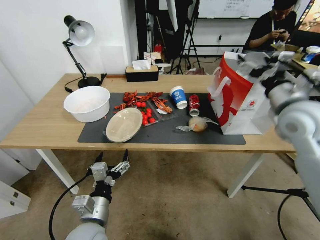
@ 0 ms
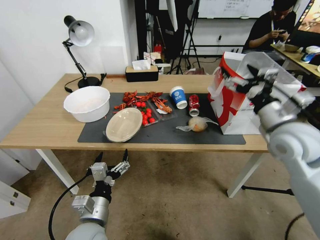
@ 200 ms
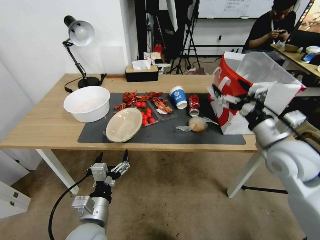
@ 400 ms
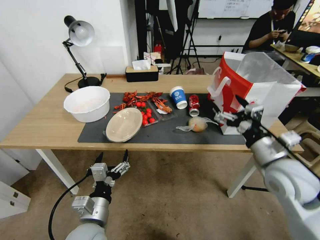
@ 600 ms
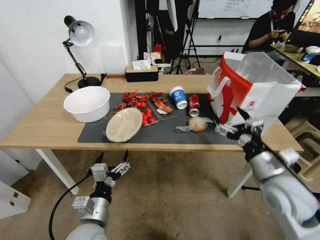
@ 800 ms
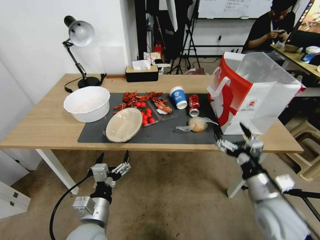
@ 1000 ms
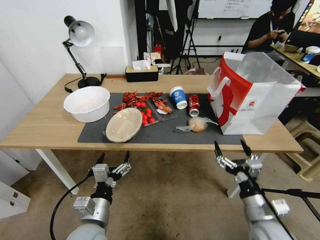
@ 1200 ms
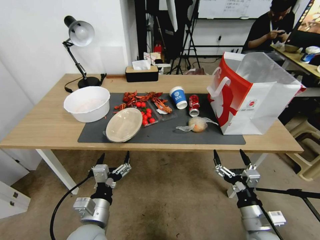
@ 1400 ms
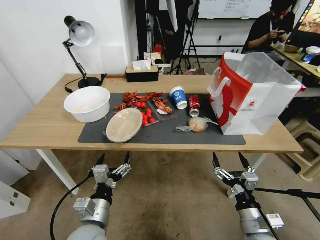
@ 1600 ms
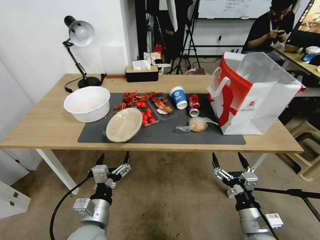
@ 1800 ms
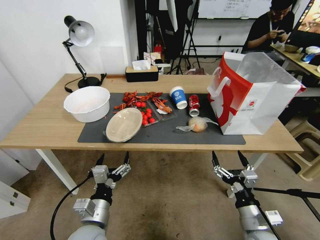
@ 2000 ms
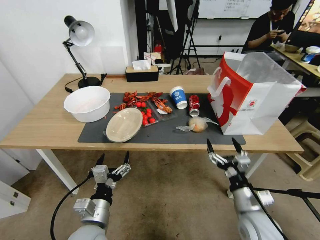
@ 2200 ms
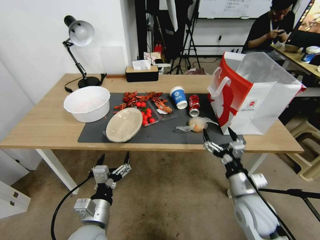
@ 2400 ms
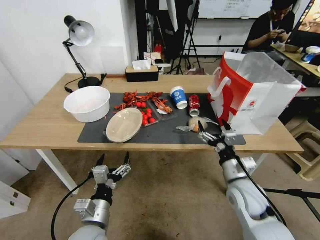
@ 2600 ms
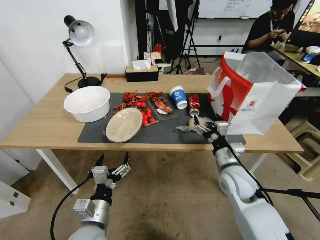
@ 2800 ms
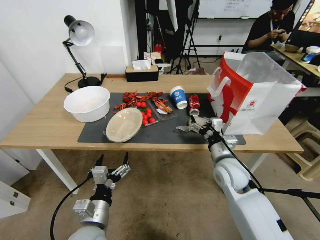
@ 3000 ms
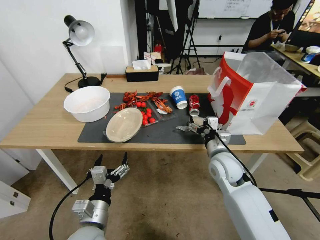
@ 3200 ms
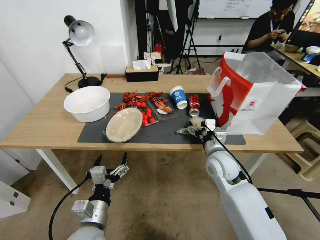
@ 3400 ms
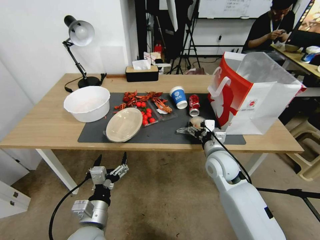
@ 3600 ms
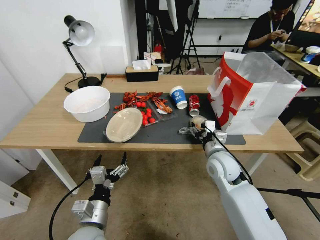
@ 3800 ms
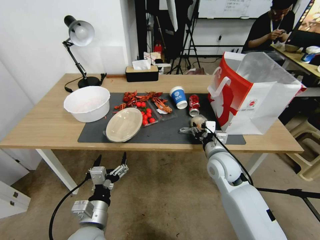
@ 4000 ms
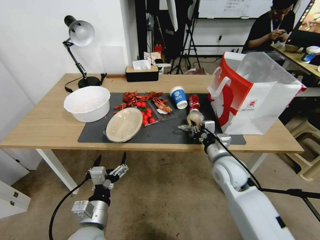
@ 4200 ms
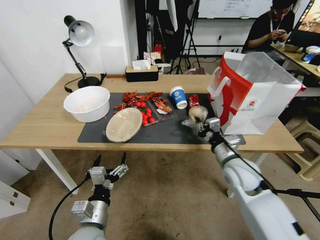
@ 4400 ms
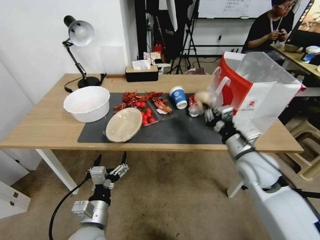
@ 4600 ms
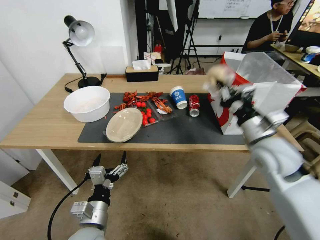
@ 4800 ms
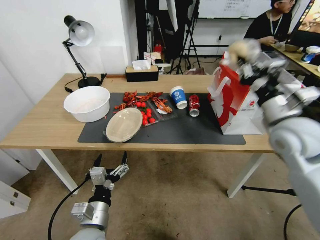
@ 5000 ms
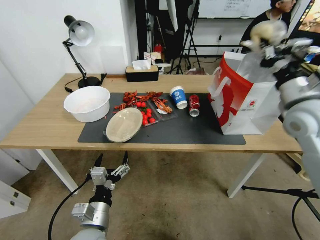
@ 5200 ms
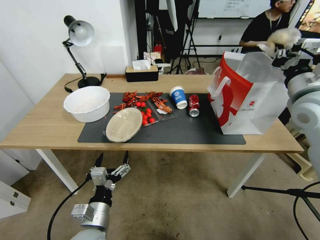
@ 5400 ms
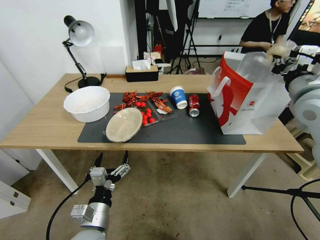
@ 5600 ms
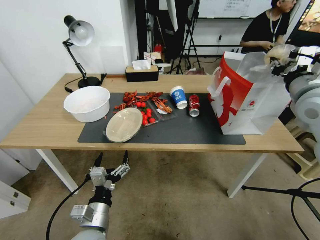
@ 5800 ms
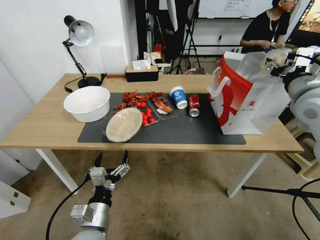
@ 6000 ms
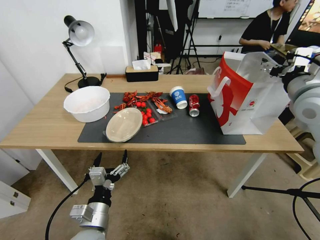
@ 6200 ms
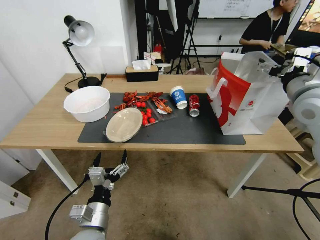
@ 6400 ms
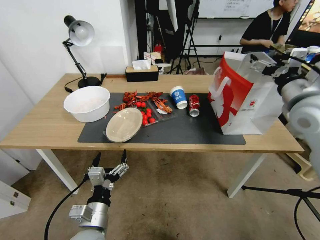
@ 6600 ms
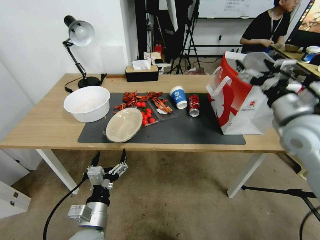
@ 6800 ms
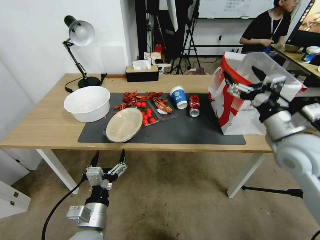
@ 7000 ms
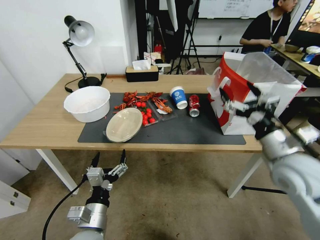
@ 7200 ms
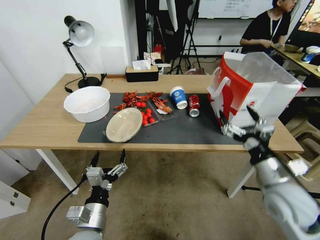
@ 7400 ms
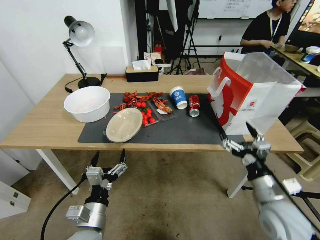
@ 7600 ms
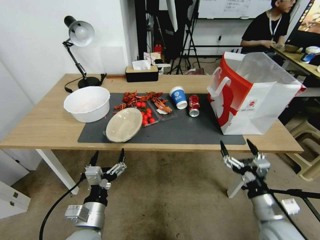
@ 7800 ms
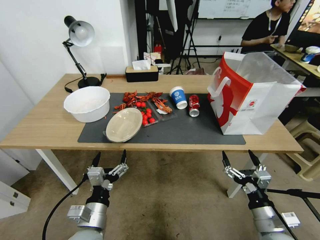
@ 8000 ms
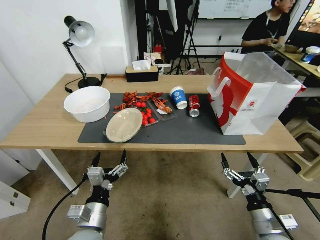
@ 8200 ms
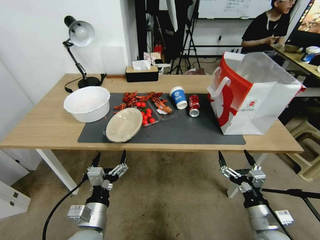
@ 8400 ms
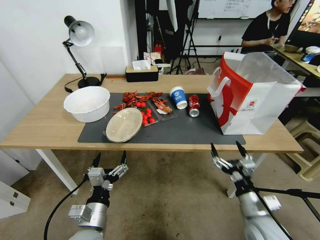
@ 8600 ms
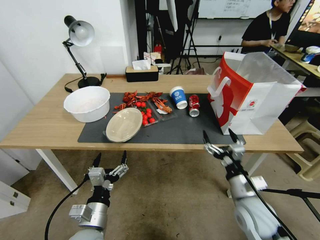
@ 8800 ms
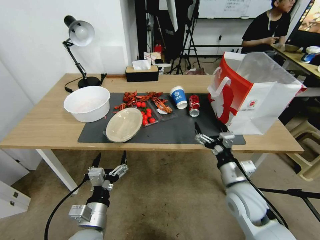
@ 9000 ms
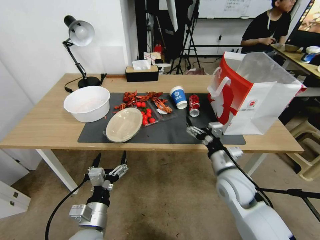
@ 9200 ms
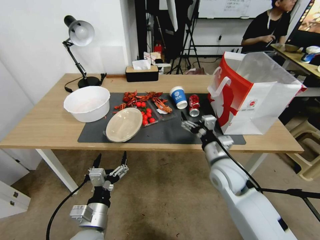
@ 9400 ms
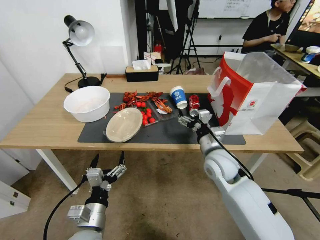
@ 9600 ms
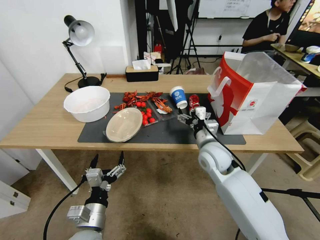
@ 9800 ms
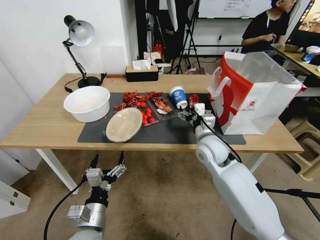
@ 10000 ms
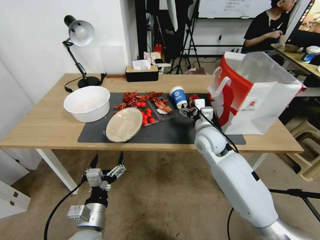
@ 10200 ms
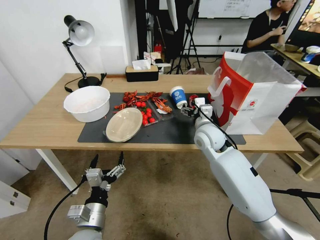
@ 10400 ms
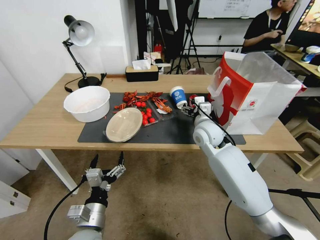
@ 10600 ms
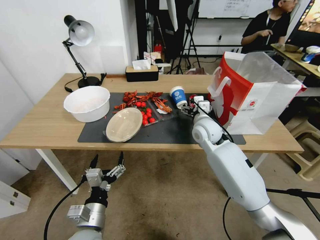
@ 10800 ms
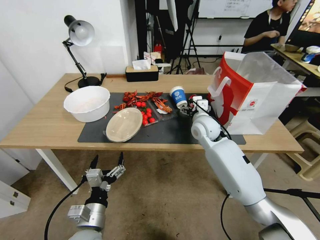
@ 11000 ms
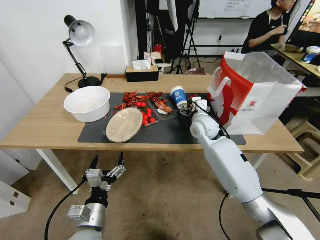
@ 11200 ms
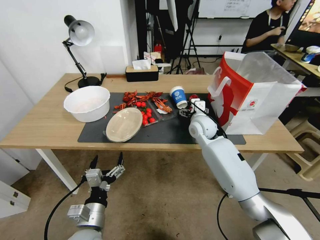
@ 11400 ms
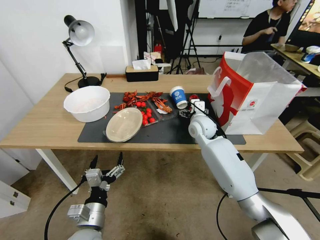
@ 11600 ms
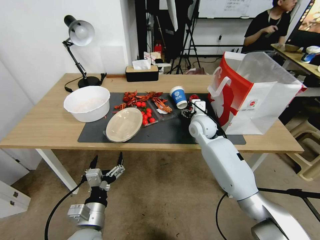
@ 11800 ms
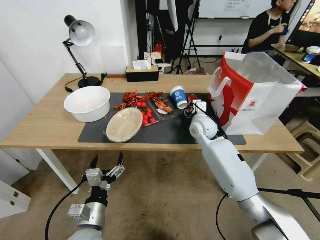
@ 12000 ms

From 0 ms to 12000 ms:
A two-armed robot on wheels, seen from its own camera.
From 0 ms to 1600 ms: The right gripper travels downward and backward by about 35 cm.
From 1600 ms to 3000 ms: The right gripper heads forward, covering roughly 20 cm.
From 3000 ms to 4400 ms: The right gripper closes.
From 4400 ms to 6000 ms: The right gripper shifts roughly 25 cm upward and to the right, and opens its fingers.
From 6000 ms to 7600 ms: The right gripper shifts approximately 25 cm downward and backward, and opens up.
From 7600 ms to 9000 ms: The right gripper heads downward and to the left, covering approximately 10 cm.
From 9000 ms to 10400 ms: The right gripper goes about 25 cm forward, to the left and upward.
From 10400 ms to 12000 ms: The right gripper moves forward, some 5 cm, and closes up.

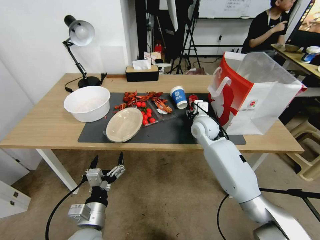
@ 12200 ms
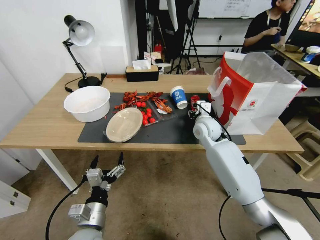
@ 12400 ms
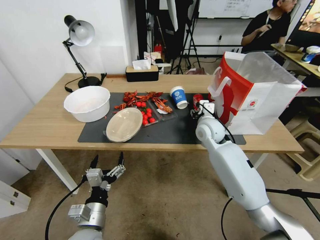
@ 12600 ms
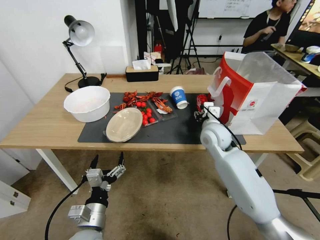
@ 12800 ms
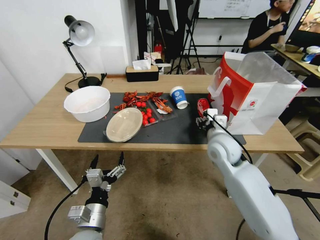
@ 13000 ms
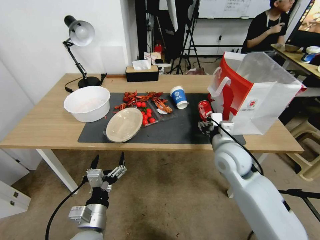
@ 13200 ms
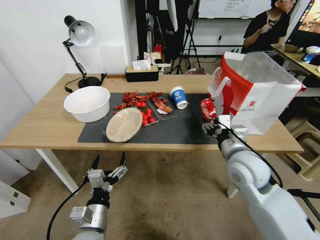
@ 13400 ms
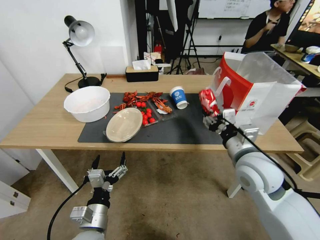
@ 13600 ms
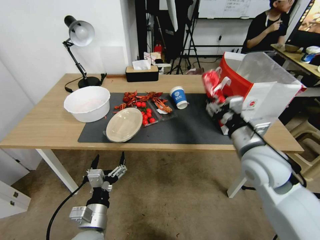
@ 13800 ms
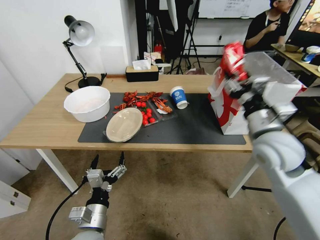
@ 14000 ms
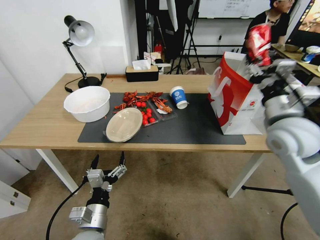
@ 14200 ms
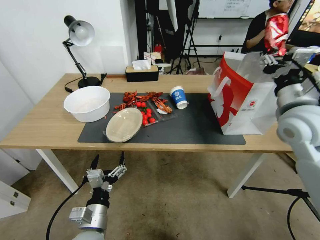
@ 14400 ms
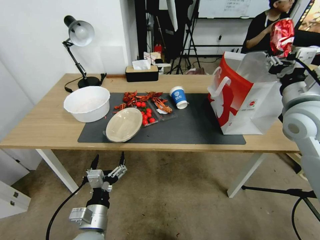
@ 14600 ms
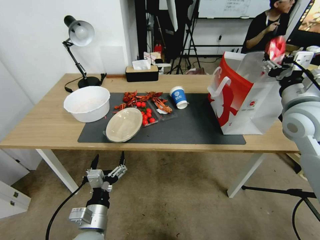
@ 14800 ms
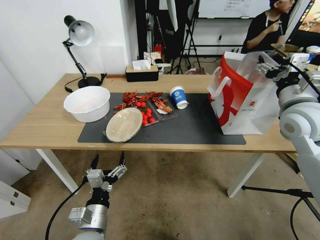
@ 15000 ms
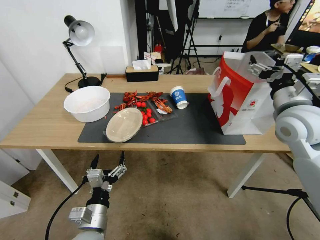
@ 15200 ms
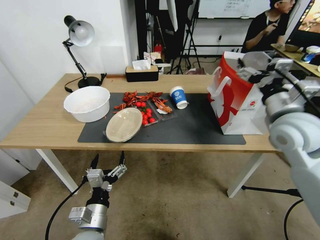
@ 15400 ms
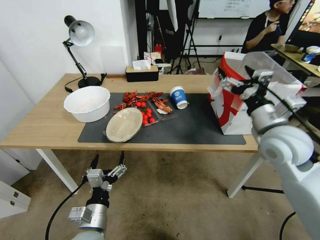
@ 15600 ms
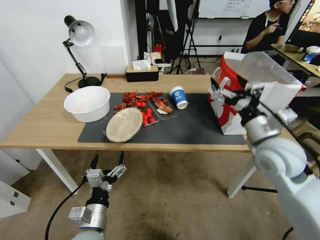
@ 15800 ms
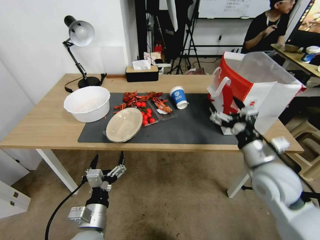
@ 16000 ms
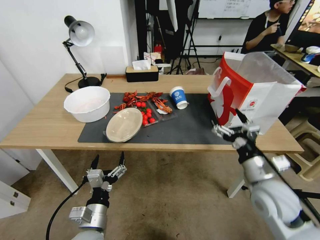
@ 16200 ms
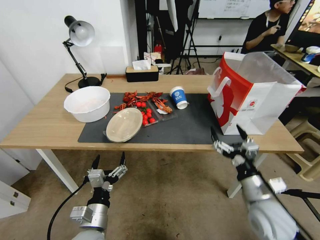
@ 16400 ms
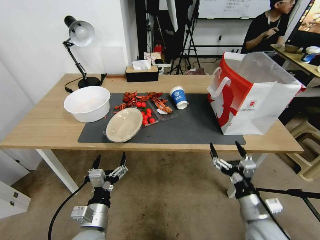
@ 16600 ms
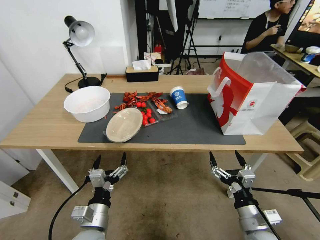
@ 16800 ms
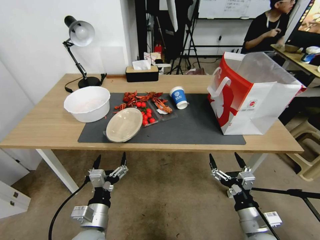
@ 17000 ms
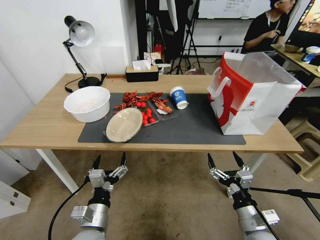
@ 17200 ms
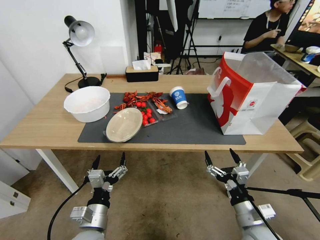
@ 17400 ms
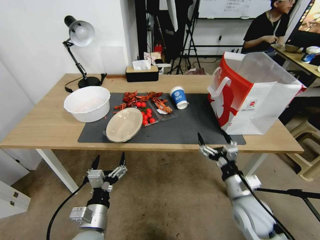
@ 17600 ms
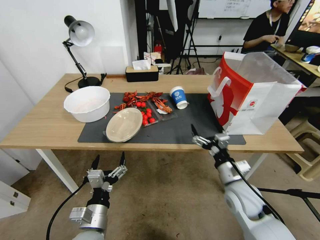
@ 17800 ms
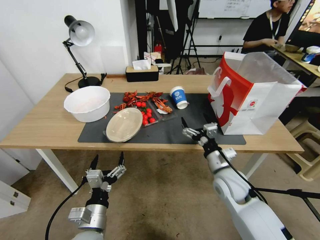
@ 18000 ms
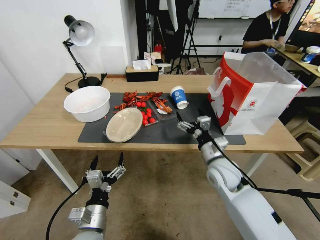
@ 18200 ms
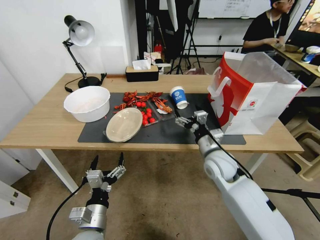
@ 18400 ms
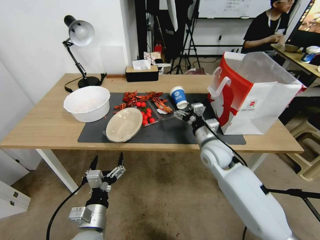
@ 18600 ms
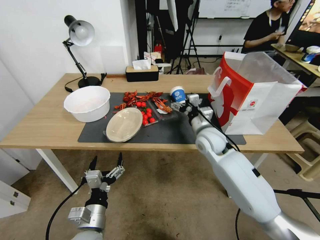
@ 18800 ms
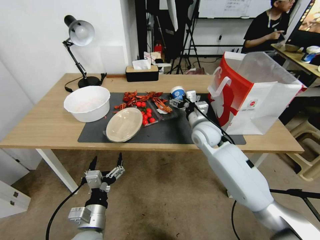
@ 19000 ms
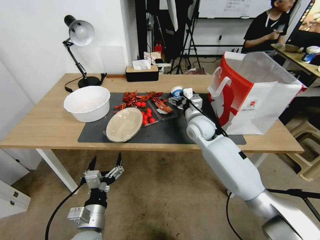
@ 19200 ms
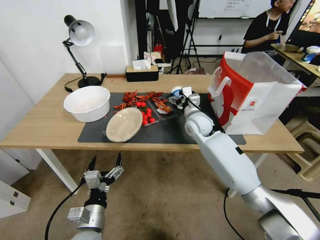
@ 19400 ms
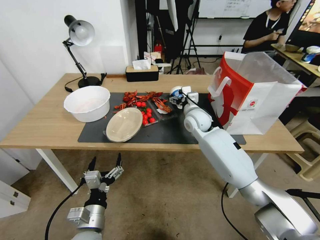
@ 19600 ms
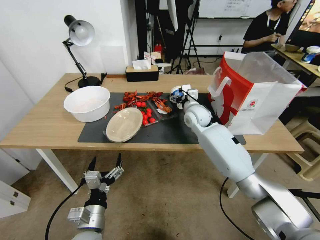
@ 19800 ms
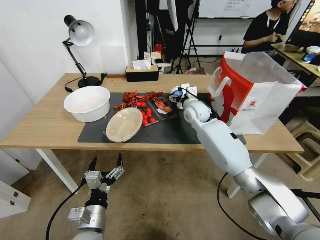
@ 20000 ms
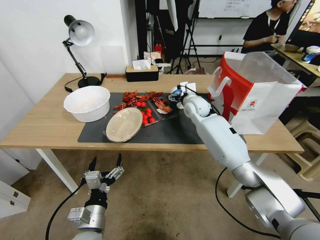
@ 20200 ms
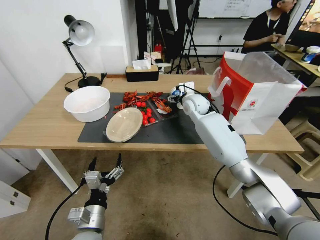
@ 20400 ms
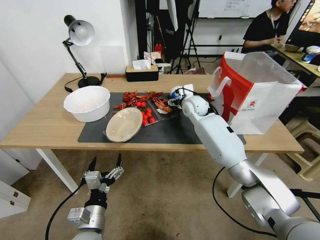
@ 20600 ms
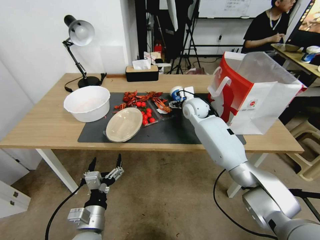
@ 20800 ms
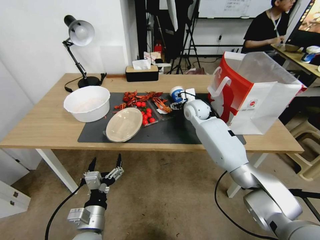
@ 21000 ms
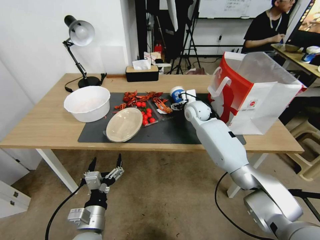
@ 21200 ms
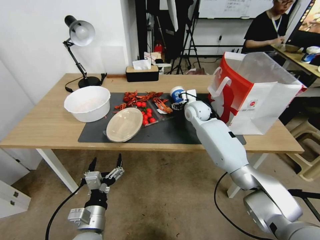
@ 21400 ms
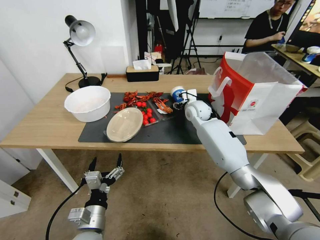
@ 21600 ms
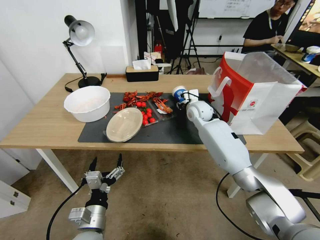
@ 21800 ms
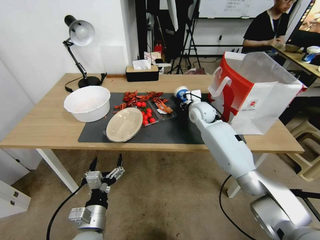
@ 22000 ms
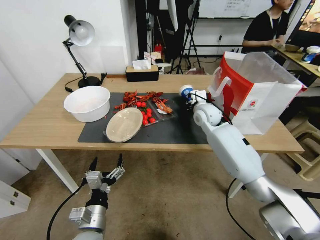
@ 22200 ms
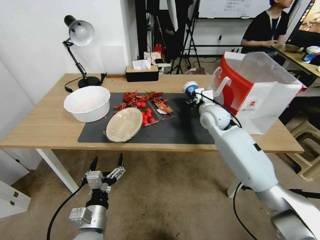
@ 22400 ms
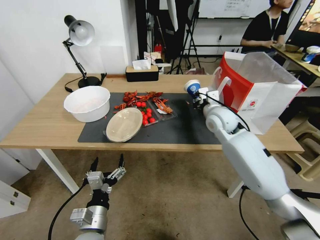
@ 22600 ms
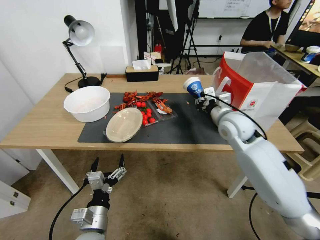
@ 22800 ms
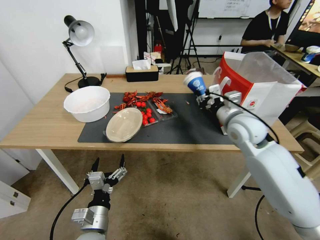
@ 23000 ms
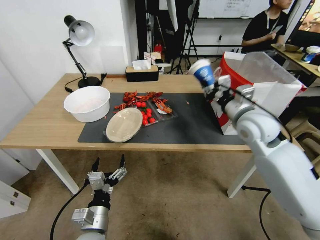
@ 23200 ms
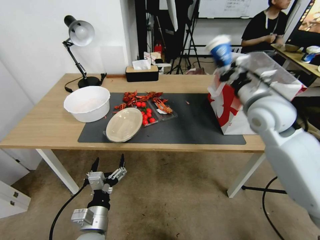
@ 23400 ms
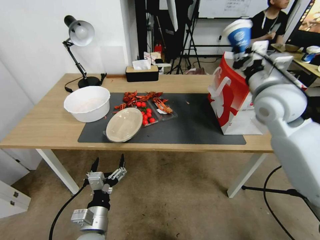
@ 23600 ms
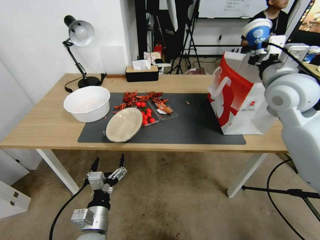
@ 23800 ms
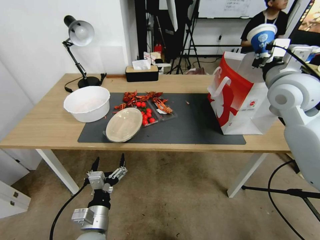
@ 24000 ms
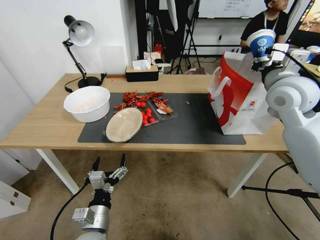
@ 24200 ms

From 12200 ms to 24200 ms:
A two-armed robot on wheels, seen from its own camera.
From 12200 ms to 13800 ms: The right gripper heads backward, upward and to the right, covering about 25 cm.
From 13800 ms to 15200 ms: The right gripper travels to the right, upward and forward by some 15 cm, and opens up.
From 15200 ms to 16600 ms: The right gripper moves downward and backward, about 25 cm.
From 16600 ms to 18200 ms: The right gripper goes approximately 15 cm forward and to the left.
From 18200 ms to 19800 ms: The right gripper travels forward by approximately 20 cm.
From 19800 ms to 21200 ms: There are only small adjustments of the grippers.
From 21200 ms to 22600 ms: The right gripper moves backward and to the right, some 10 cm, and closes its fingers.
From 22600 ms to 24200 ms: The right gripper is displaced upward and to the right by approximately 20 cm.
